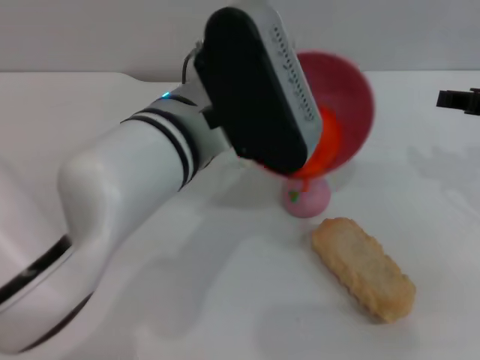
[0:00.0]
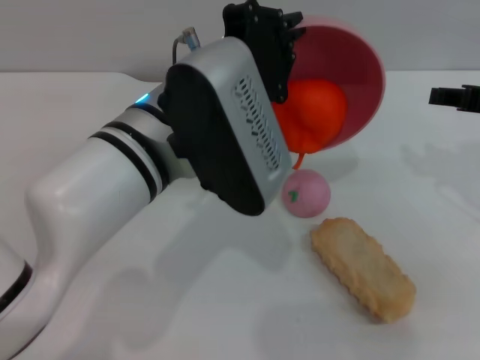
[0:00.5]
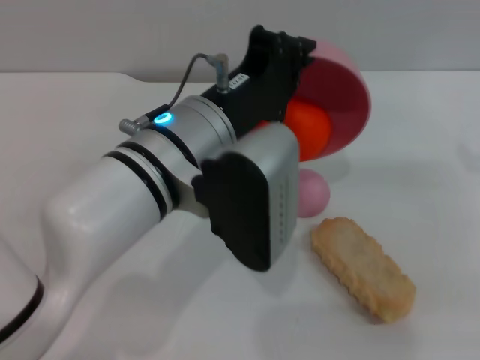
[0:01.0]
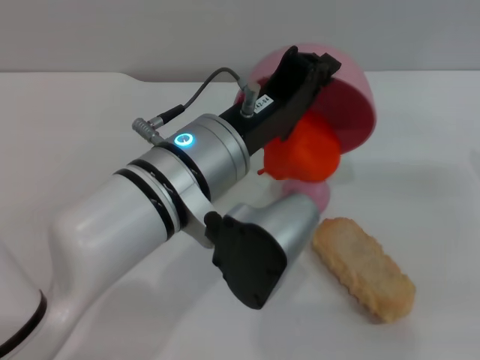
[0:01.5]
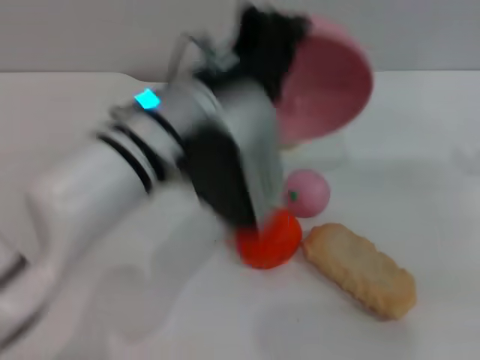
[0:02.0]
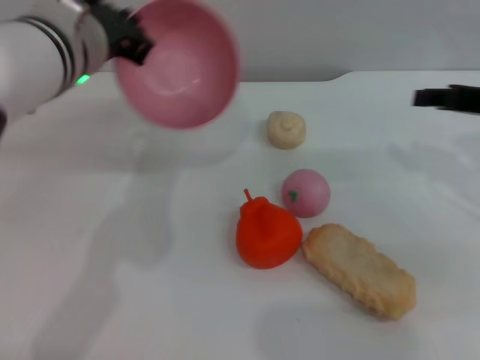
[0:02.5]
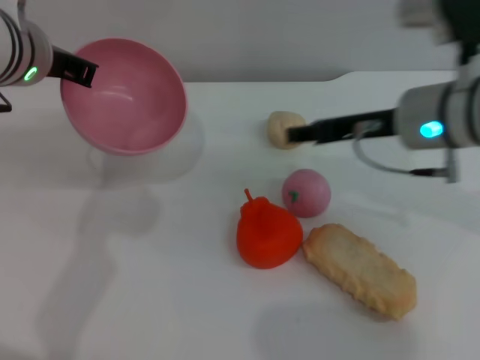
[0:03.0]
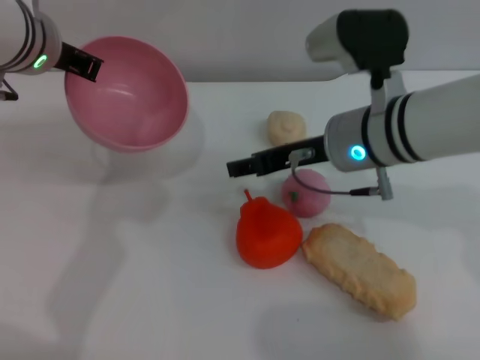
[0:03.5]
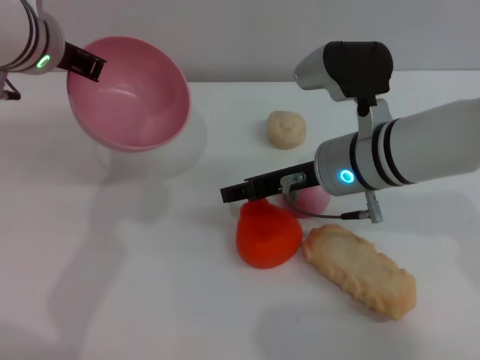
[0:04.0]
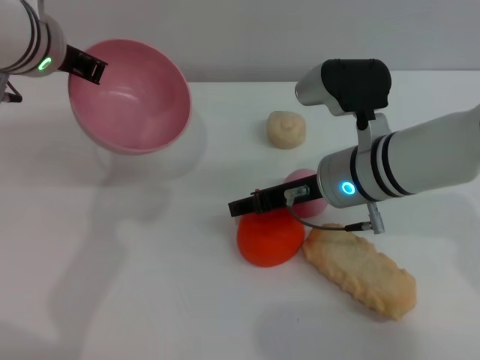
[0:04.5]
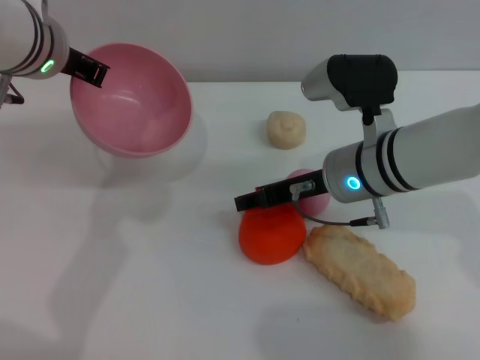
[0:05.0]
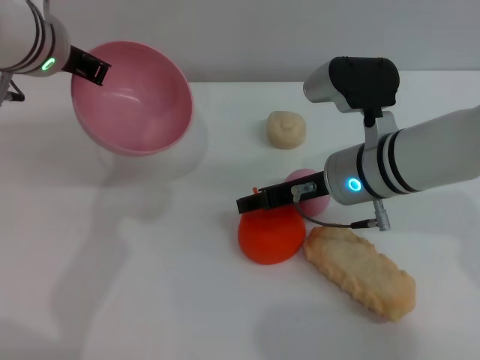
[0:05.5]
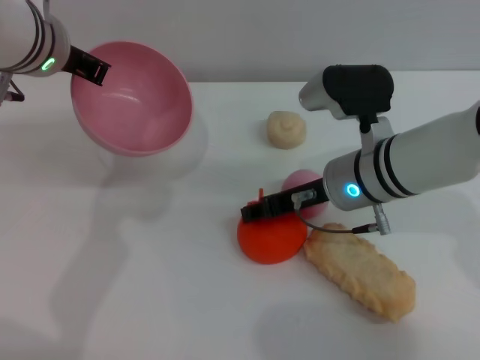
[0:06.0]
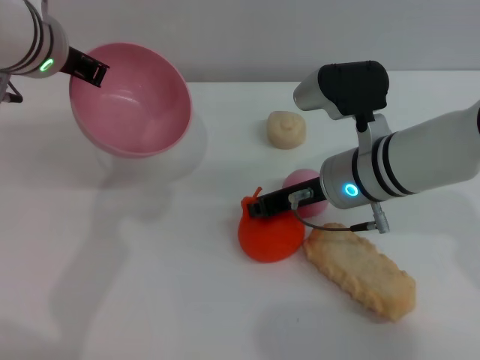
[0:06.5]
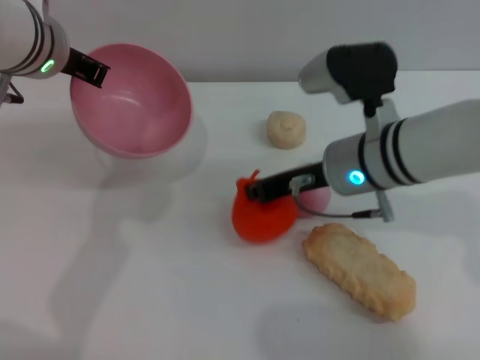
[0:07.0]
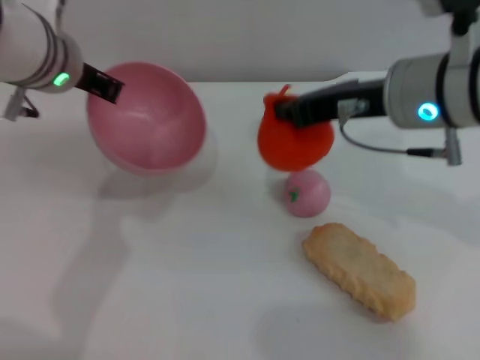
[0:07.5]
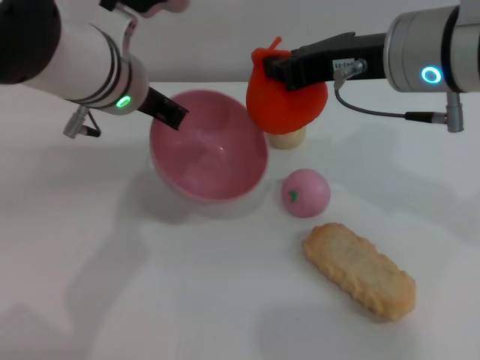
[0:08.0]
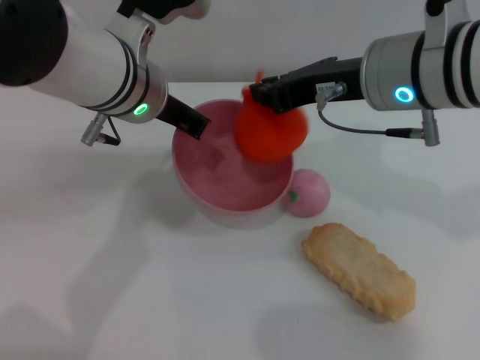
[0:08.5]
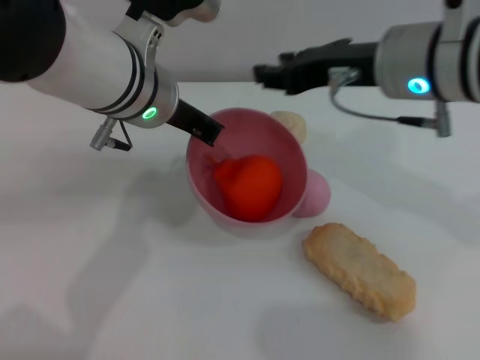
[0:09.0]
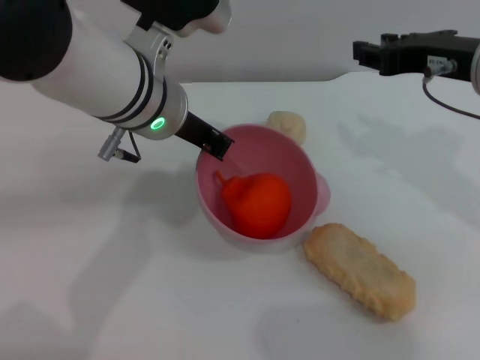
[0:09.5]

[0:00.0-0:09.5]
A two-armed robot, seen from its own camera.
Task of the whole recording: put the orange into the pink bowl and pour it out repeatedly.
Step, 0:00.0 to 0:01.5: Pour the orange out of the bowl.
Step, 0:02.5 to 0:07.0: Pick up the orange with the right gripper.
Step, 0:07.5 to 0:09.0: Place the orange into the bowl.
0:00.0 to 0:02.0: The right gripper goes about 5 cm to the right.
0:02.0 to 0:04.0: The left gripper heads to the left and forward, covering some 15 cm; the right gripper travels to the left by approximately 25 cm.
0:04.0 to 0:05.5: The grippers stay close to where they were, moving slightly.
0:05.5 to 0:07.5: The right gripper travels upward by about 10 cm, and closes its fingers.
0:07.5 to 0:09.5: Both grippers move to the right, about 5 cm. The right gripper opens.

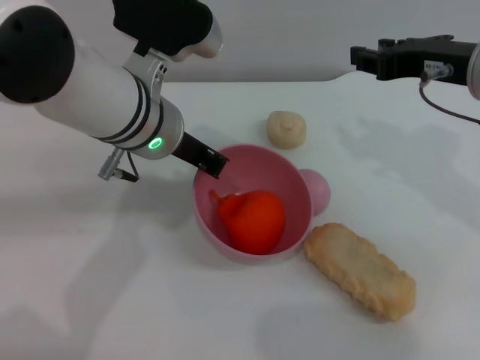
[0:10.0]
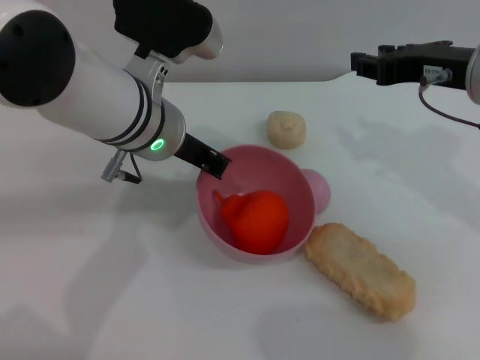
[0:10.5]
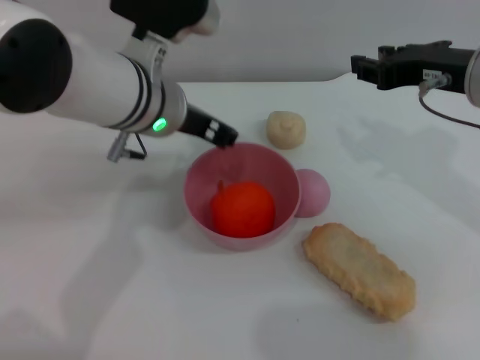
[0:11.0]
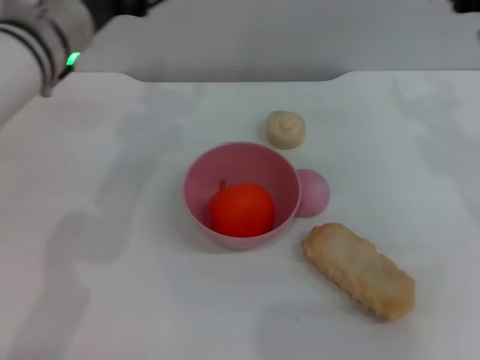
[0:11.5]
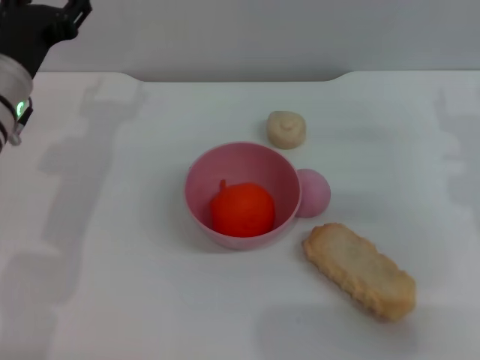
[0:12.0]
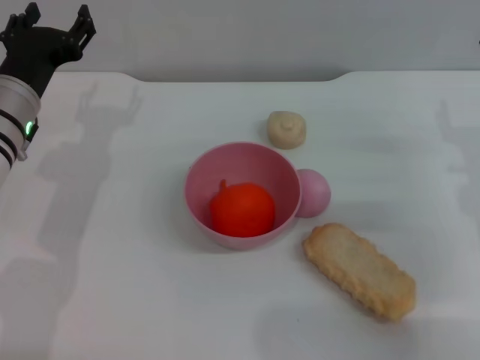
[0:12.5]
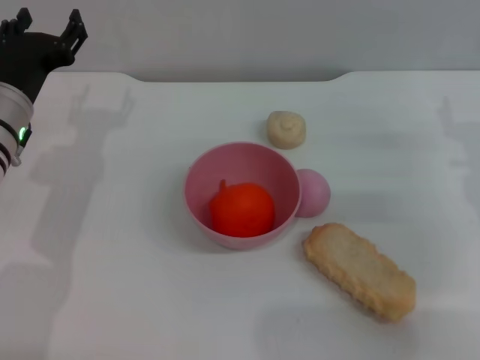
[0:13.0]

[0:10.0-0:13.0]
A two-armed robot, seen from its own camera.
Task of the whole recording: put the orange into the pink bowl and pour it out repeatedly.
Step, 0:10.0 to 0:11.0: Place the bowl on the table.
0:10.0 to 0:11.5: The right gripper moves about 5 cm, while the left gripper moves to the left, approximately 5 cm, and opens.
0:11.5 to 0:13.0: The left gripper shifts about 10 cm downward and to the left.
